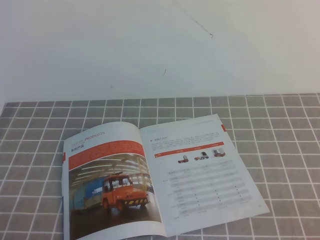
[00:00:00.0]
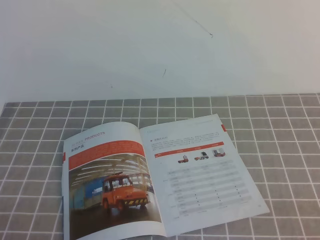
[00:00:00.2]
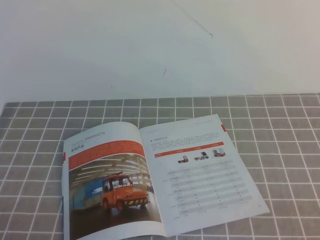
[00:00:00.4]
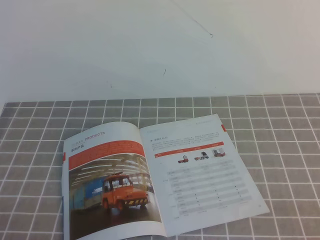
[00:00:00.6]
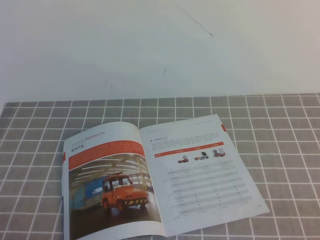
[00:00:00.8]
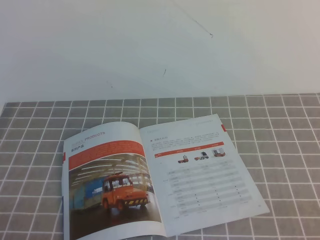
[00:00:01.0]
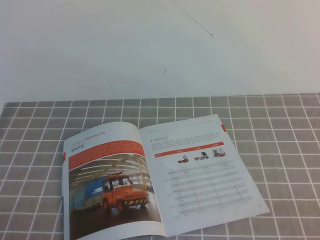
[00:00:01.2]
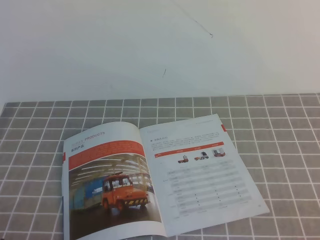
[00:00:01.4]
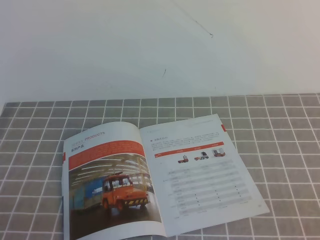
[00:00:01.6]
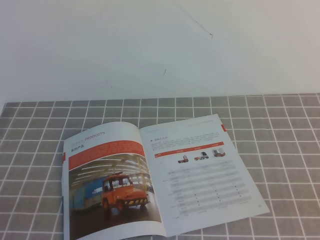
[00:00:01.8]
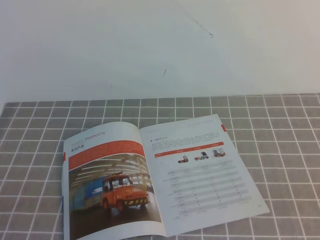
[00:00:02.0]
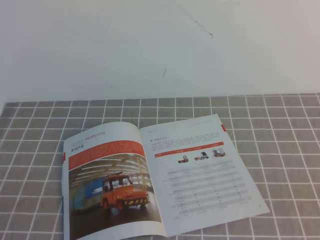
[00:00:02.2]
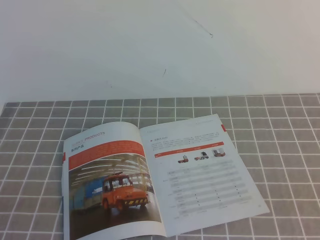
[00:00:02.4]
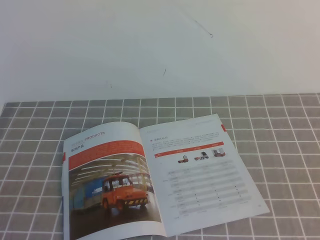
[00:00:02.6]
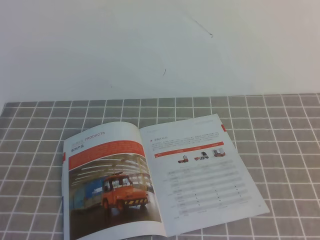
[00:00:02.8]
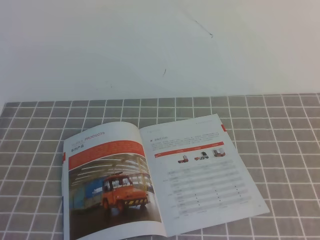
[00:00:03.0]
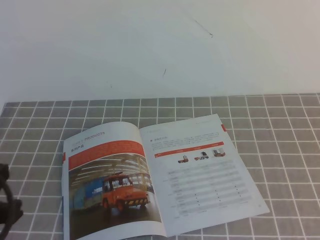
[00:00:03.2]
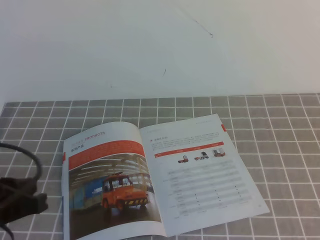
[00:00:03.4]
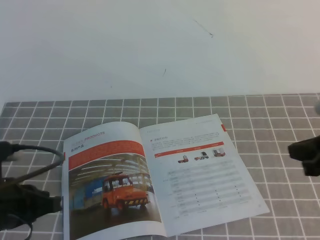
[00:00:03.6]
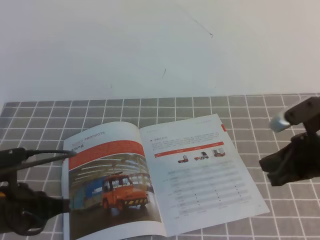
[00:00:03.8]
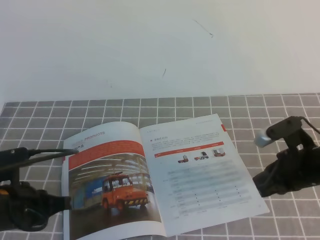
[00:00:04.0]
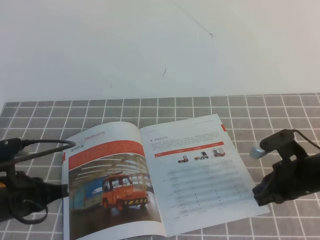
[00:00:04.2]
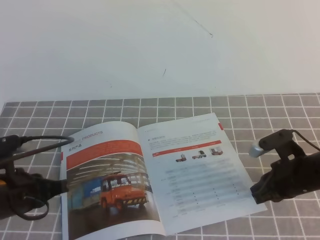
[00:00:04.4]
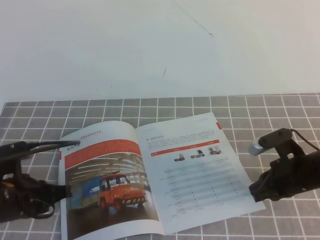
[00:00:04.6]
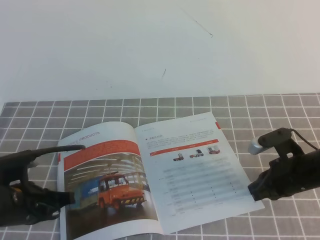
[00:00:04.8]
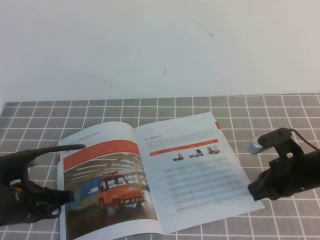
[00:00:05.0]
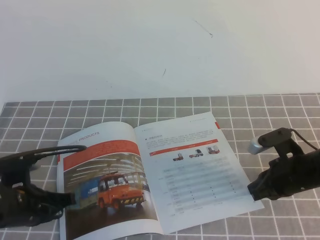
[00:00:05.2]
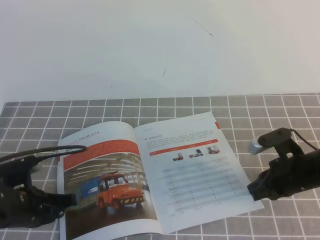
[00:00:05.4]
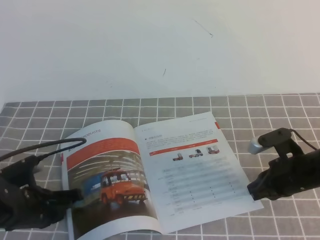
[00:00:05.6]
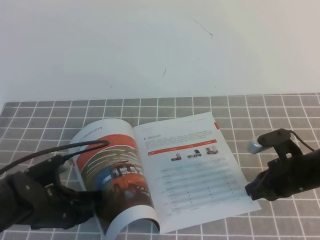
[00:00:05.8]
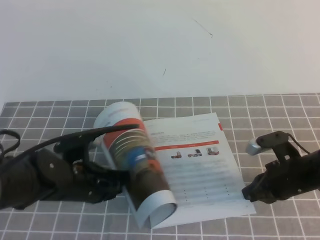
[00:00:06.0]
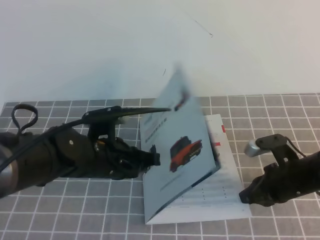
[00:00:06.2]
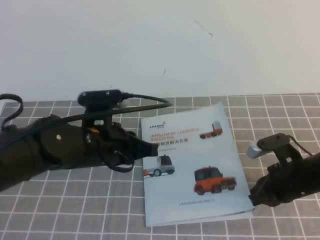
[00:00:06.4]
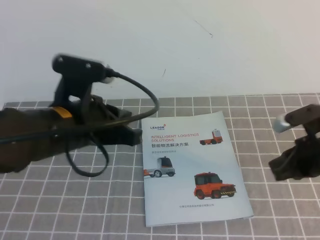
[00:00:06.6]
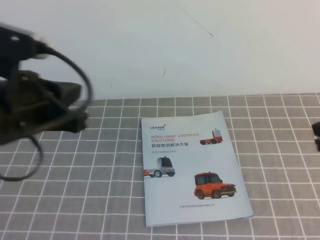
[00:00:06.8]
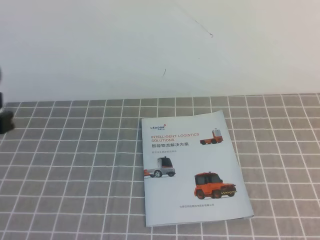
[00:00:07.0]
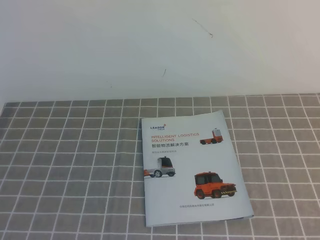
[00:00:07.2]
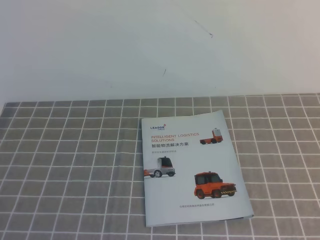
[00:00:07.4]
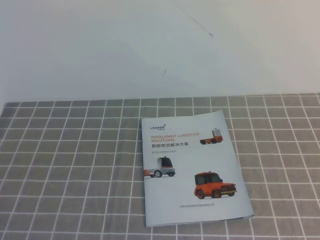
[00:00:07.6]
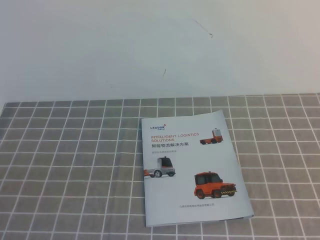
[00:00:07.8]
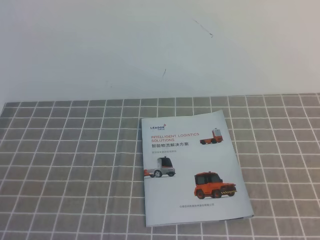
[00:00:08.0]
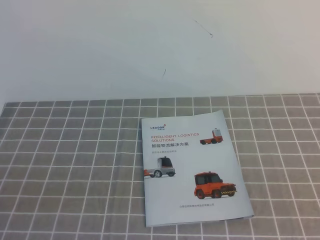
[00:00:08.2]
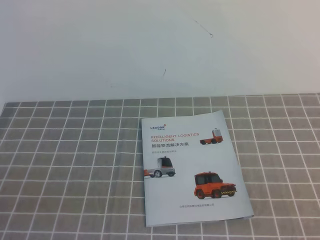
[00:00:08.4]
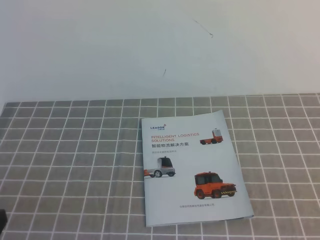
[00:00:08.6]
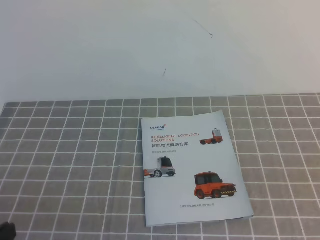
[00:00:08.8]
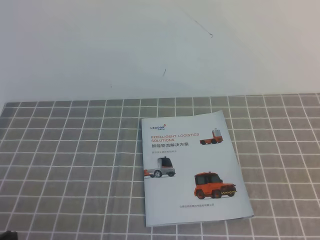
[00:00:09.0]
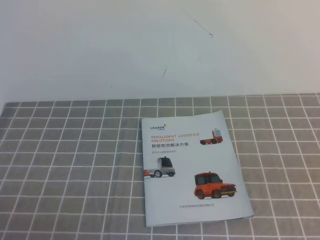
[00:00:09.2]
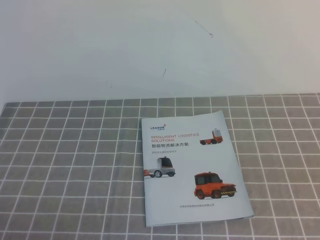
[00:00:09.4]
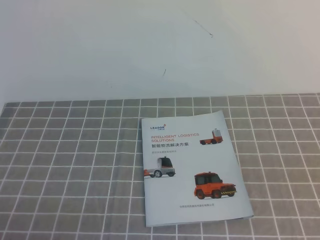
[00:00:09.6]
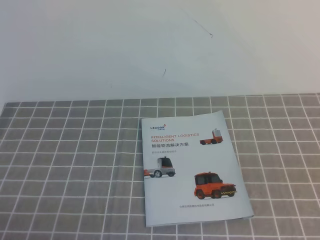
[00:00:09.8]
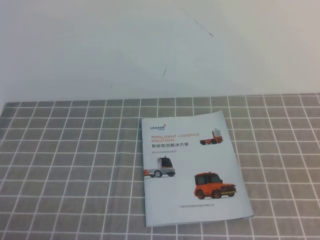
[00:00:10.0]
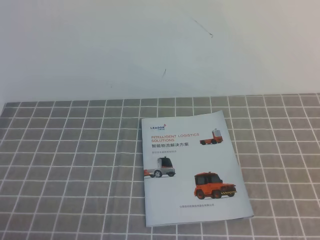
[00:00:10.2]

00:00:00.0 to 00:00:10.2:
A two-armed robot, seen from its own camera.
Task of the whole recording: on the grey tablecloth, hold the book with one hand and close it with the other.
00:00:00.0 to 00:00:01.4: The two grippers keep their place.
00:00:03.0 to 00:00:04.4: The right gripper goes approximately 35 cm downward, forward and to the left, while the left gripper shifts about 20 cm forward and downward.
00:00:04.4 to 00:00:05.8: The left gripper shifts approximately 5 cm downward.
00:00:05.8 to 00:00:07.2: Both grippers travel together upward and backward, roughly 25 cm.

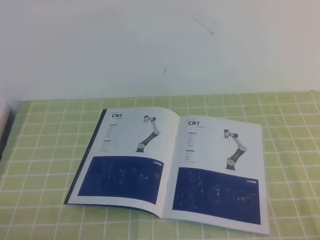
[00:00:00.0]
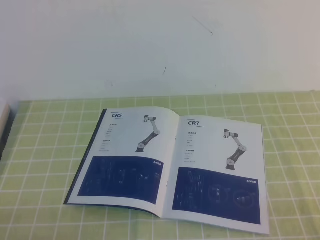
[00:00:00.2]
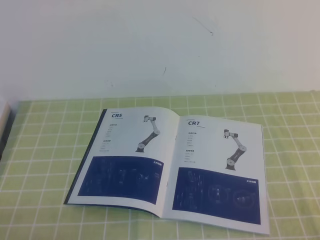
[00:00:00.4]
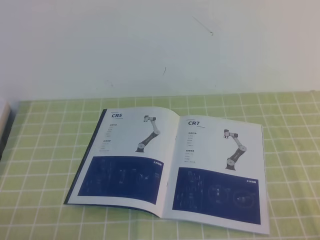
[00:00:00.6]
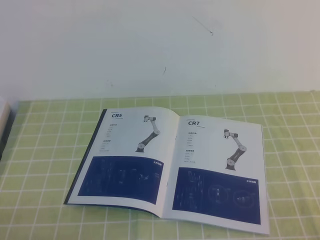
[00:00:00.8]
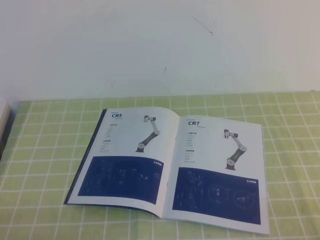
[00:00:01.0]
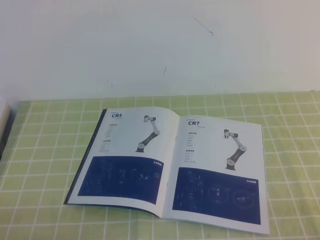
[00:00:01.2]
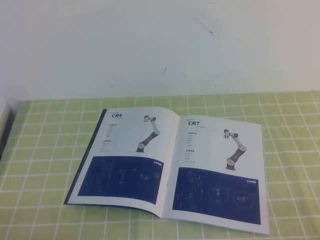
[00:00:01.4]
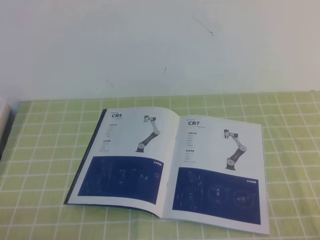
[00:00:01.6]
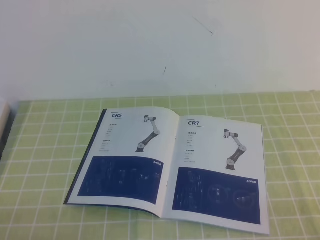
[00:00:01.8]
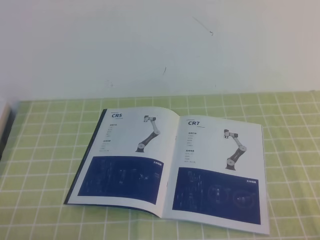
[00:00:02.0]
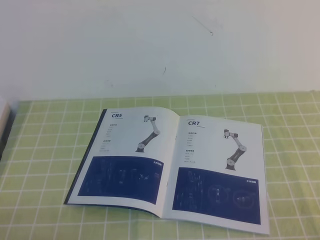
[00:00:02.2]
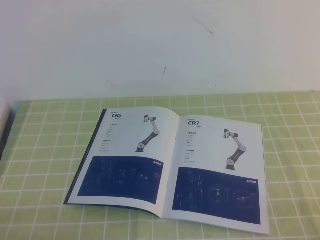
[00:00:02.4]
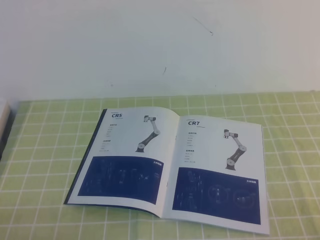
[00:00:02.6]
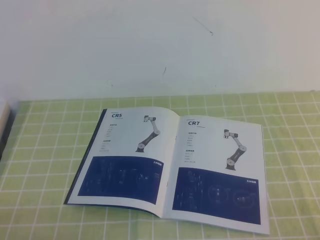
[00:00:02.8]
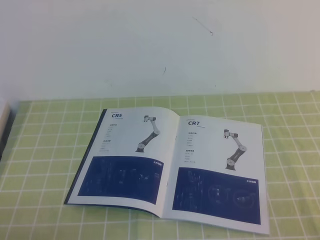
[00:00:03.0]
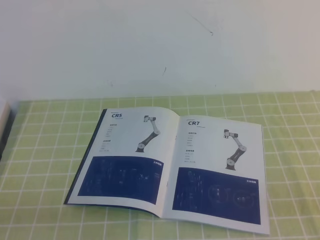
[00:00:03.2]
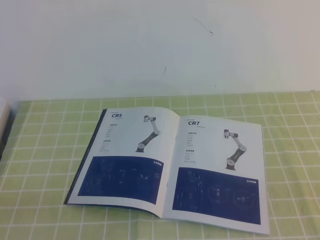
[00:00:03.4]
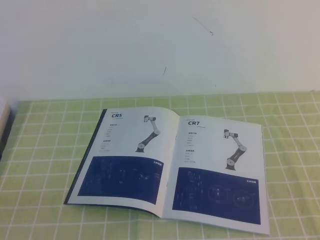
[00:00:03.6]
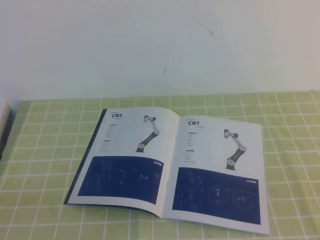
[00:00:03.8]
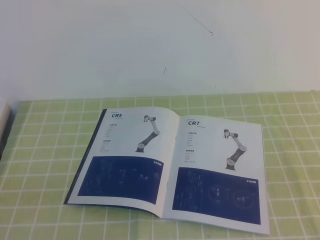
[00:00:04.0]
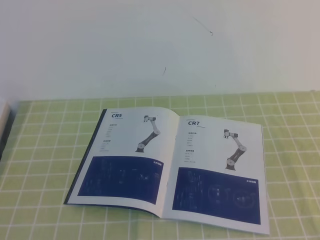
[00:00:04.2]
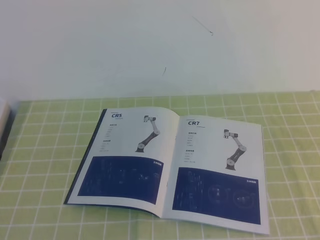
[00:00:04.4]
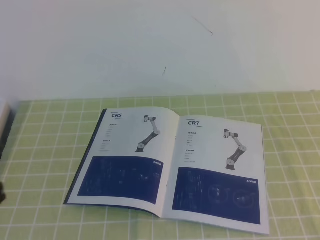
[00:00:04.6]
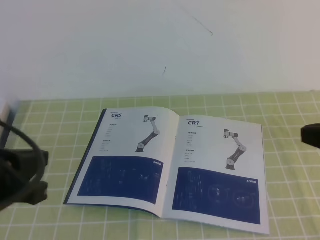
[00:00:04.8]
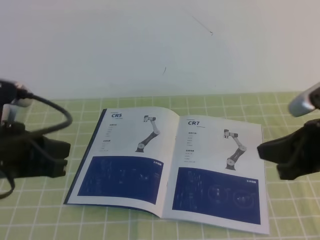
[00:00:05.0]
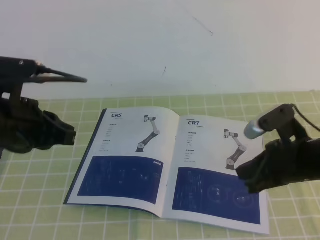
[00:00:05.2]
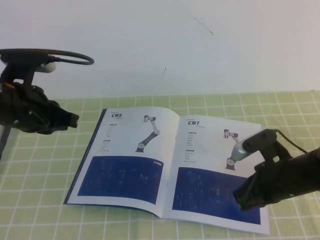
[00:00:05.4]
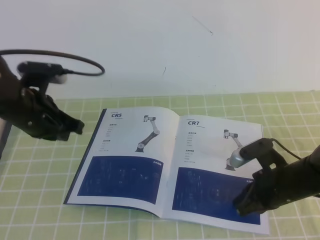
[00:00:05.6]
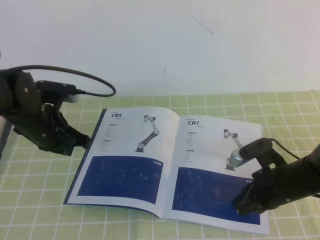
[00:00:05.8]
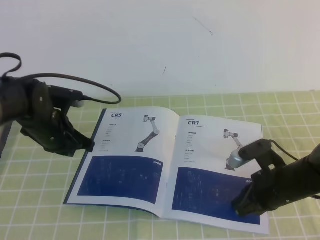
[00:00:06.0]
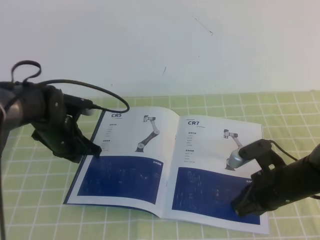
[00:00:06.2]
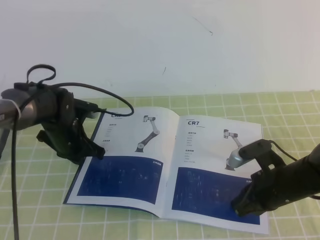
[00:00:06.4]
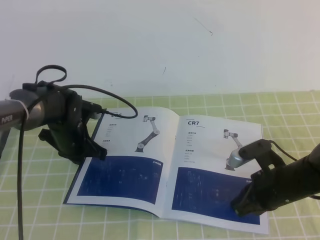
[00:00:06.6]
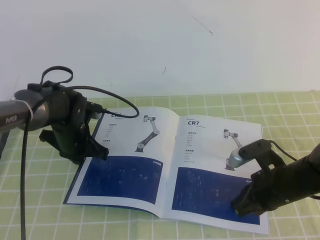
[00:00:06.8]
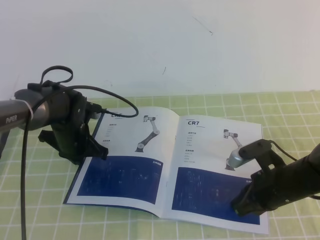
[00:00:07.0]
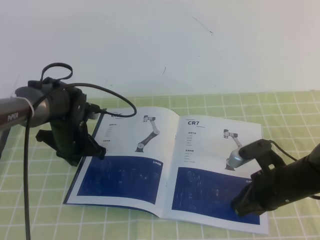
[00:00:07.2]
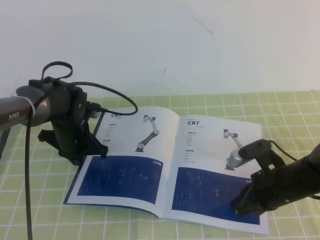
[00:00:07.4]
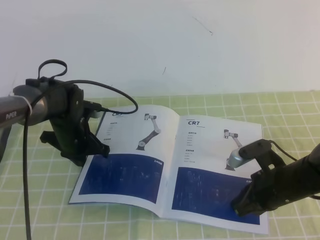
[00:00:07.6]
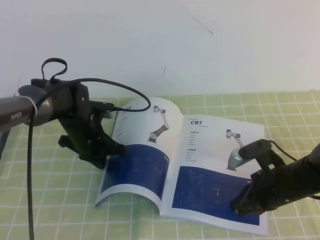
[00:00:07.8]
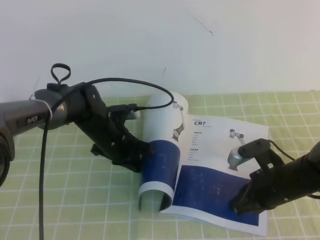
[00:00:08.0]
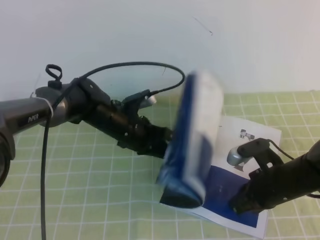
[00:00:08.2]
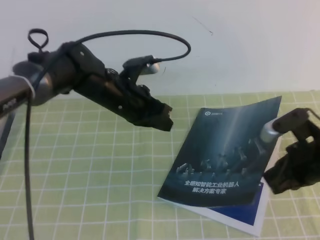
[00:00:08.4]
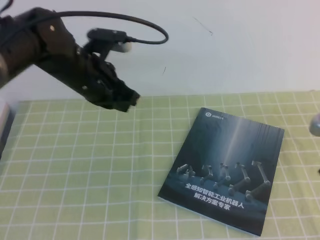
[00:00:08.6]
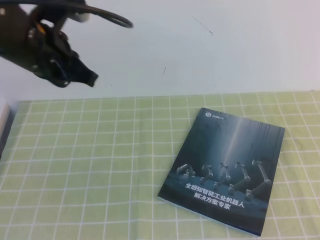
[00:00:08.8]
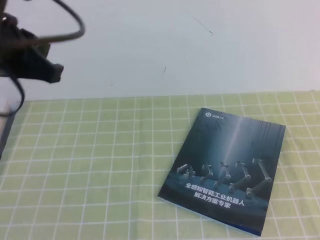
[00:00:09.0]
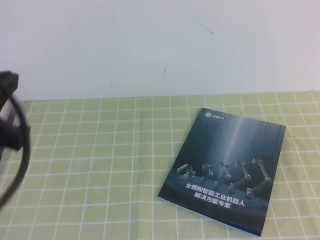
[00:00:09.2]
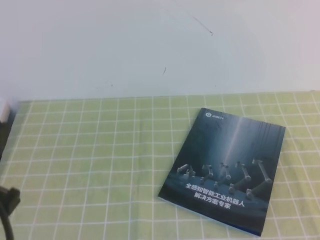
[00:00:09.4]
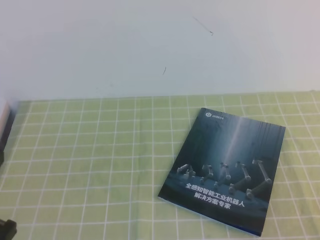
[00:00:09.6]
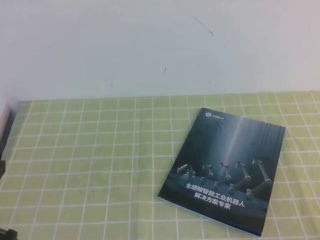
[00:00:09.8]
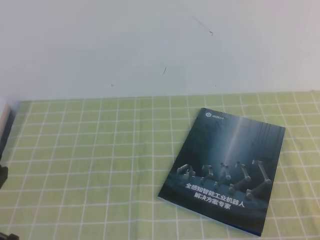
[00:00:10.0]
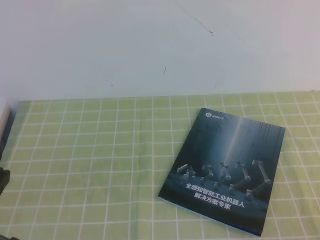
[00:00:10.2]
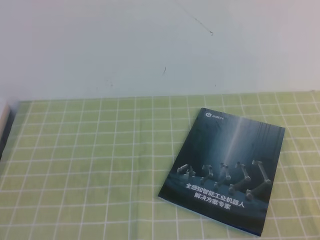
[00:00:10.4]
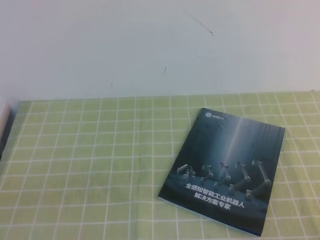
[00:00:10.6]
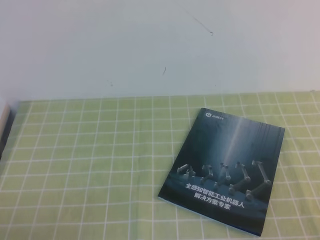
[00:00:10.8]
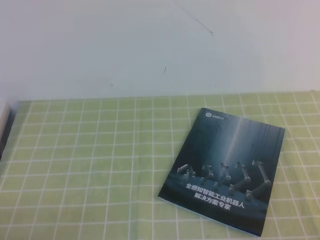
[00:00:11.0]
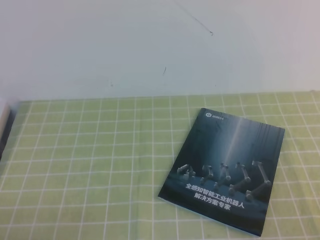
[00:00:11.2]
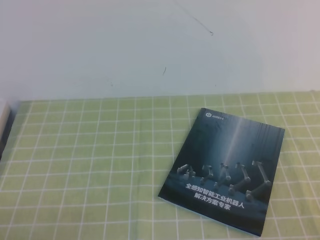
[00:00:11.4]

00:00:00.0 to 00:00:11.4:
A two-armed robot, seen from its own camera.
Task of the whole recording: on the green tablecloth, hold the book with one hand and close it with the other.
00:00:00.0 to 00:00:02.8: Both grippers stay about where they are.
00:00:04.2 to 00:00:05.6: The left gripper moves forward, about 30 cm. The right gripper moves forward, downward and to the left, approximately 35 cm.
00:00:05.6 to 00:00:07.2: The left gripper is displaced downward and forward by some 15 cm.
00:00:07.2 to 00:00:08.6: The two grippers go approximately 15 cm upward and to the right.
00:00:08.6 to 00:00:10.0: The right gripper heads backward, covering some 20 cm. Meanwhile the left gripper shifts some 30 cm backward and to the left.
